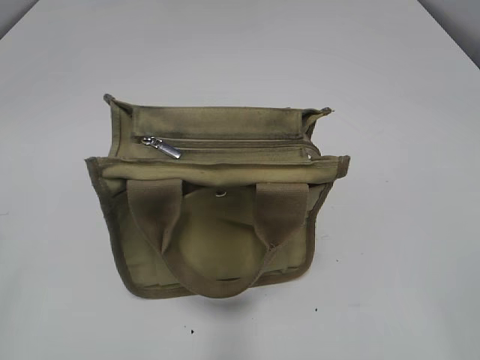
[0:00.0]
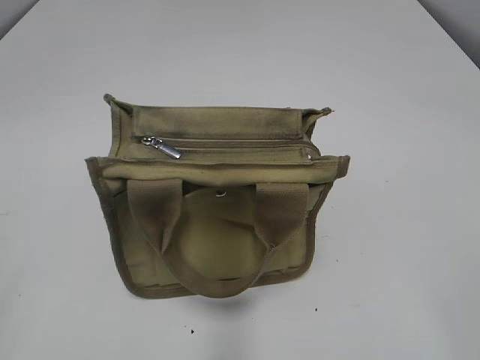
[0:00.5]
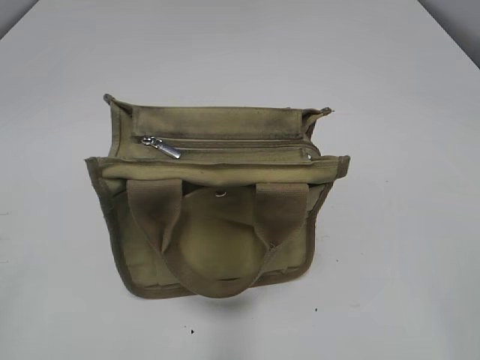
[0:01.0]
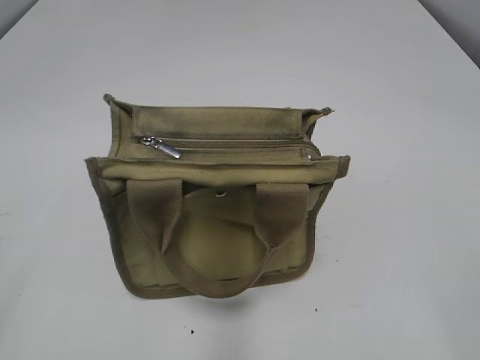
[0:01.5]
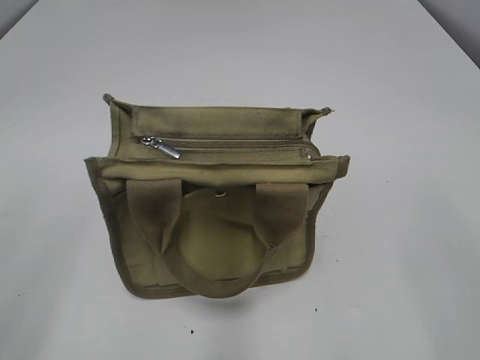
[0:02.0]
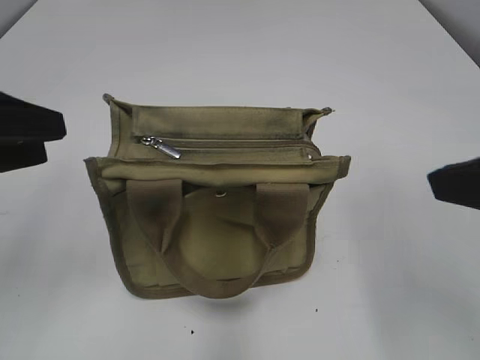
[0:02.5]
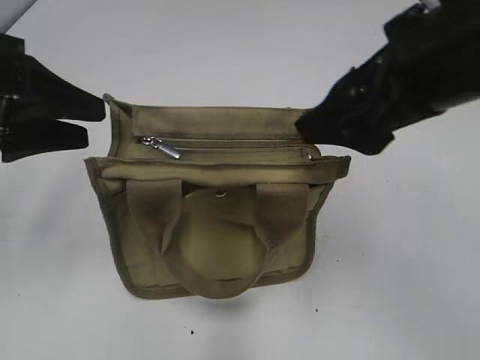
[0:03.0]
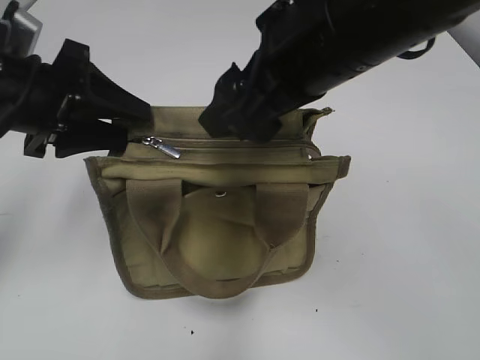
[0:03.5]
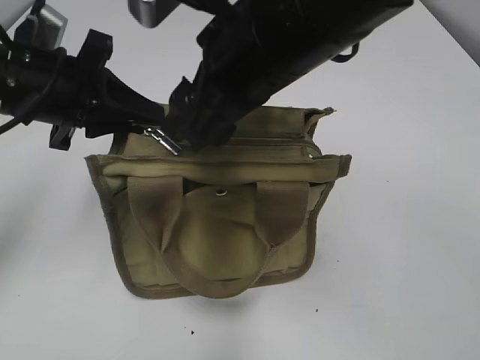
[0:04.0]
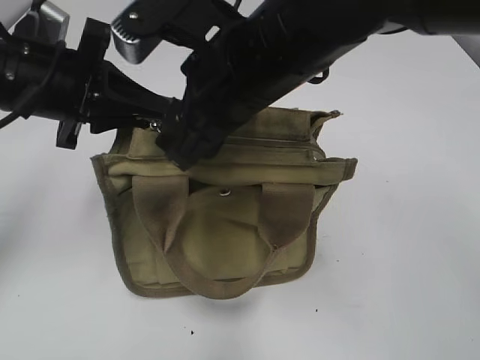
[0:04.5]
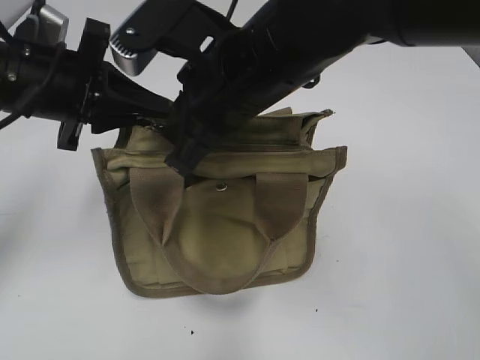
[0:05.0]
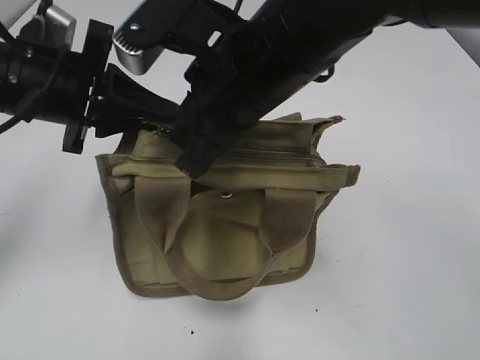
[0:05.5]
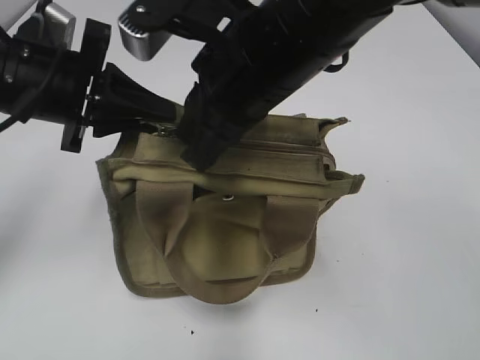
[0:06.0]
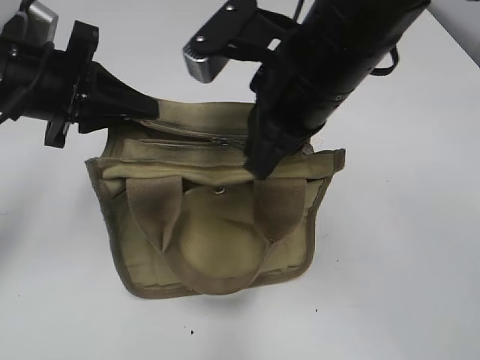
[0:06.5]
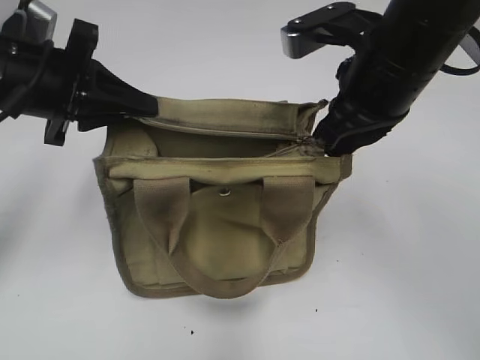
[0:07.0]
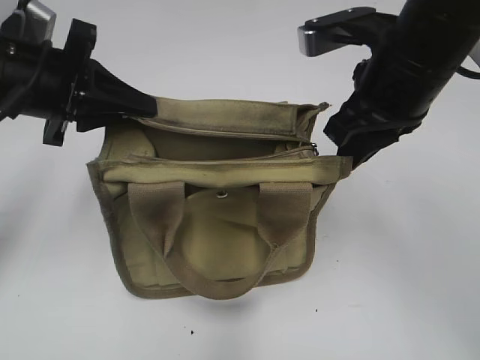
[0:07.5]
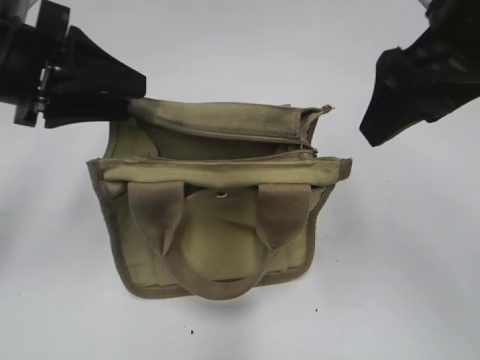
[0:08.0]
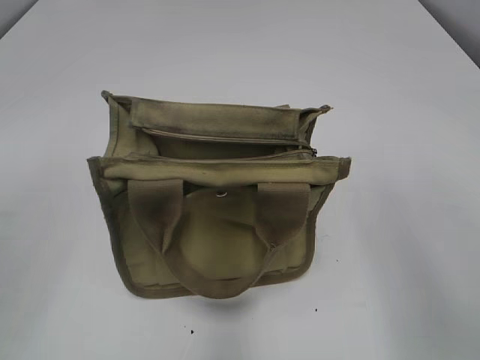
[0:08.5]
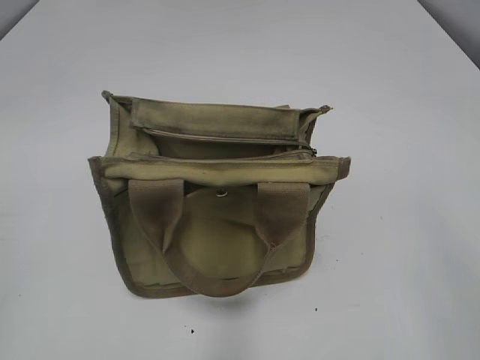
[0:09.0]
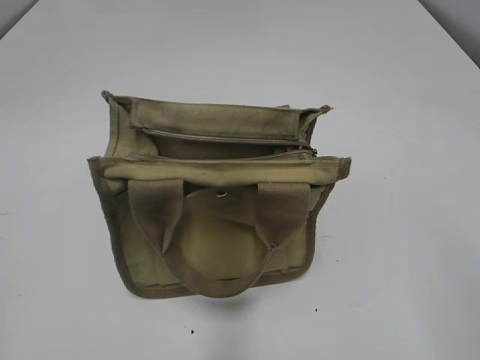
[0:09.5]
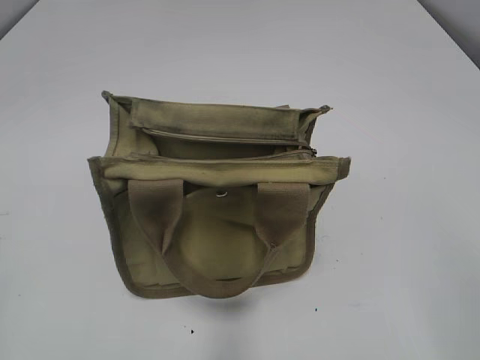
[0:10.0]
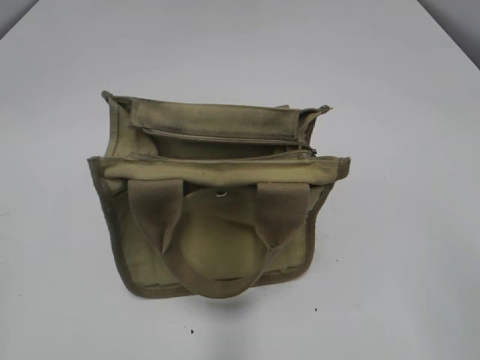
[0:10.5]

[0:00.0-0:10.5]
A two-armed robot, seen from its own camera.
Step, 0.0 to 7.0 s: Pull open the zipper with your right hand.
Step, 7.5 to 8.0 s: Hold the bag with your left hand.
2.0 to 4.0 s: The left gripper travels forward and to the right by approximately 25 cm, and closes up. Meanwhile the right gripper heads to the left and forward, covering about 35 cm.
4.0 to 6.5 s: The right gripper closes.
6.5 to 8.5 s: The right gripper moves to the right and backward, roughly 20 cm, and opens its fingers; the left gripper goes approximately 20 cm backward, upward and to the left, and opens up.
8.5 to 10.5 s: The right gripper heads backward, downward and to the right, covering some 15 cm.

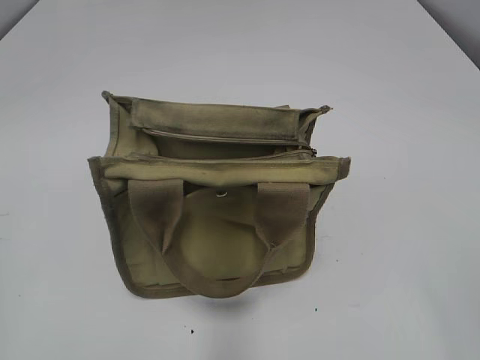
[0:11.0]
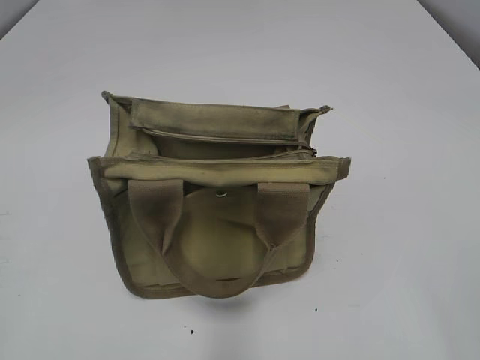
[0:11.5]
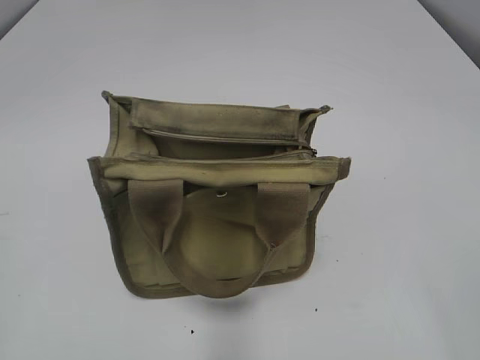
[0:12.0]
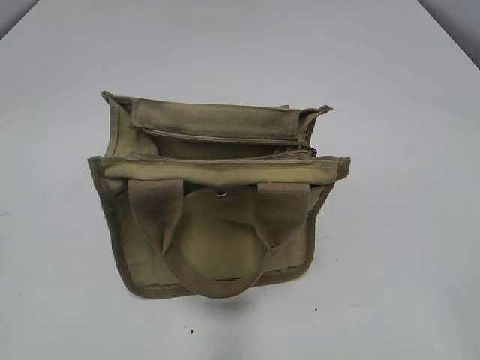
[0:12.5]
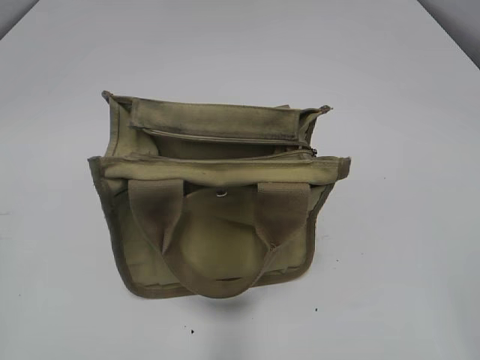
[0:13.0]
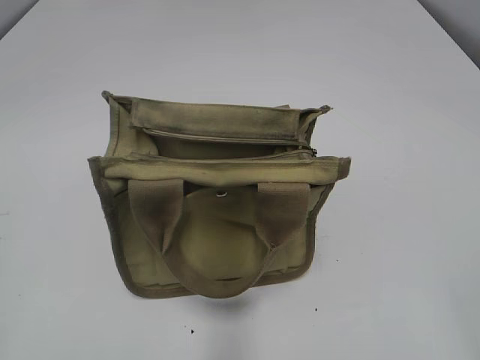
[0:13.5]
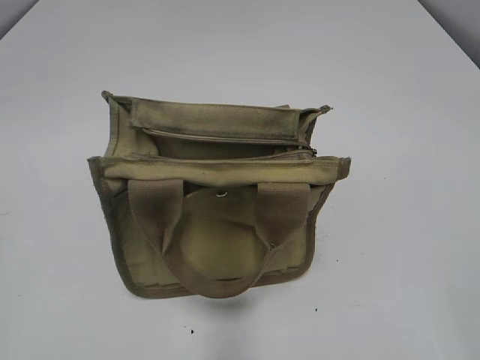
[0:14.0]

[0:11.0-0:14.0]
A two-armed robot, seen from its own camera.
12.5 to 14.0 s: Both grippers stay put.

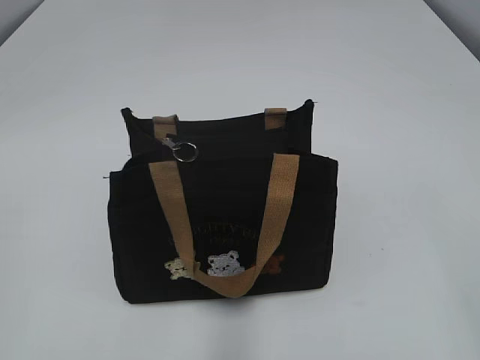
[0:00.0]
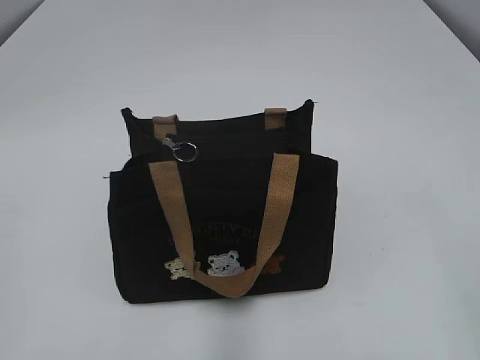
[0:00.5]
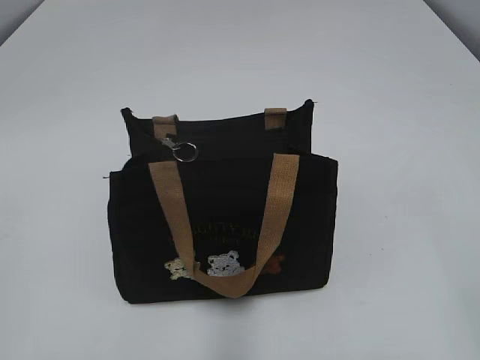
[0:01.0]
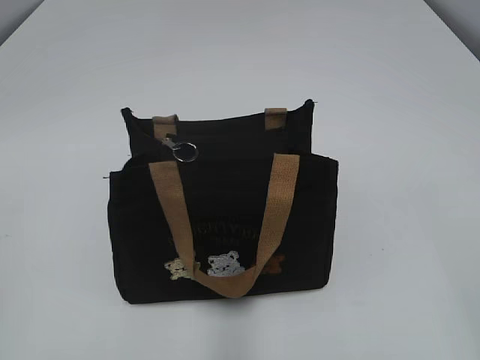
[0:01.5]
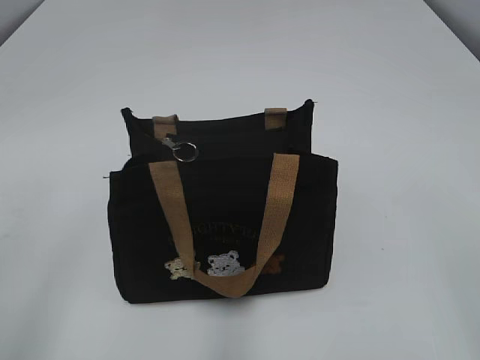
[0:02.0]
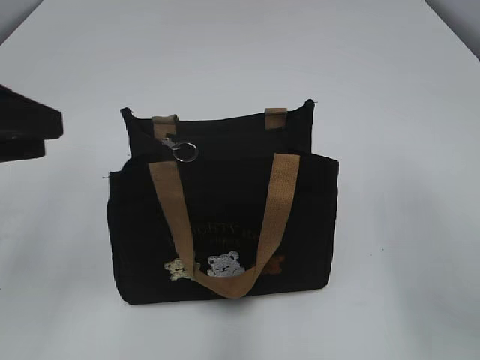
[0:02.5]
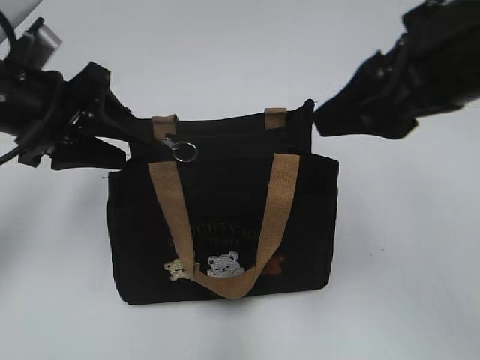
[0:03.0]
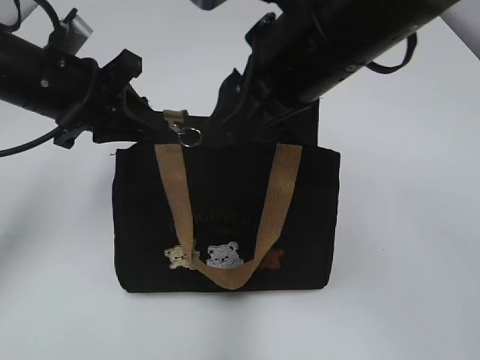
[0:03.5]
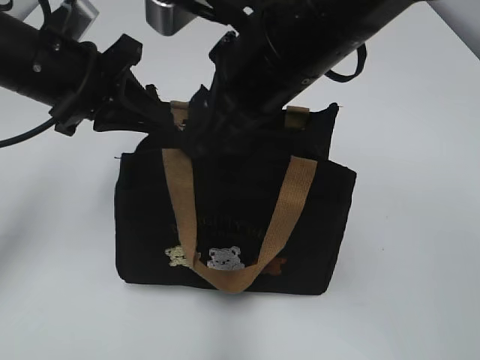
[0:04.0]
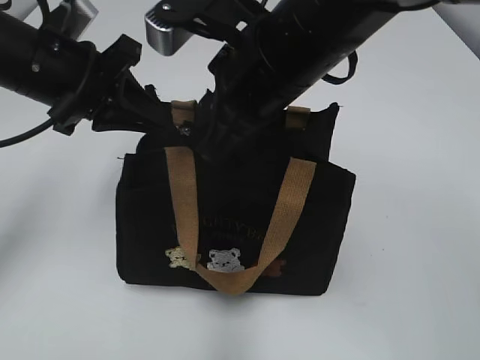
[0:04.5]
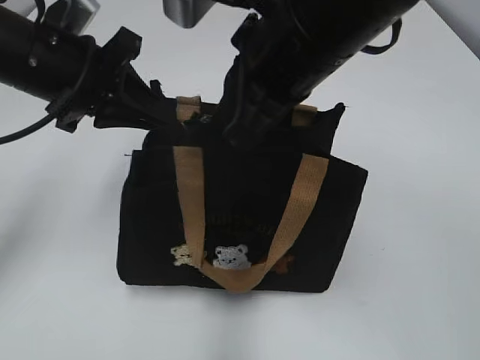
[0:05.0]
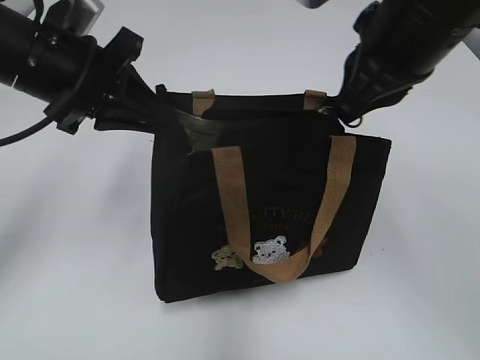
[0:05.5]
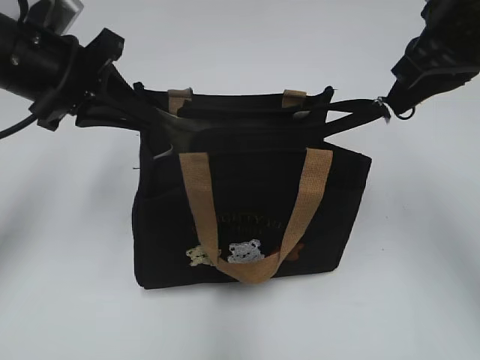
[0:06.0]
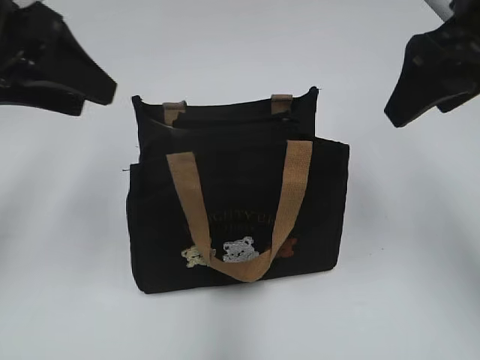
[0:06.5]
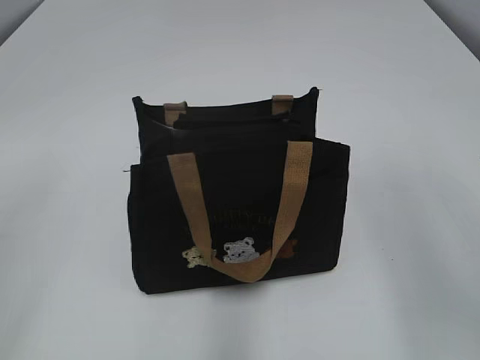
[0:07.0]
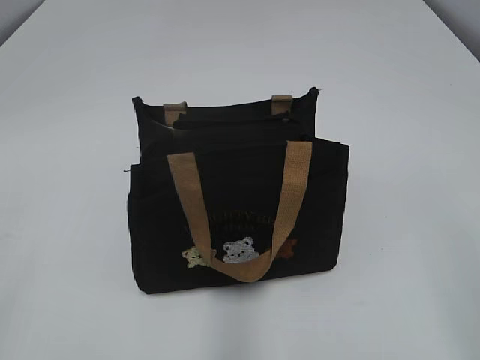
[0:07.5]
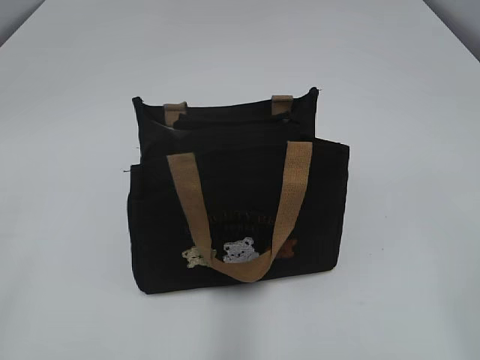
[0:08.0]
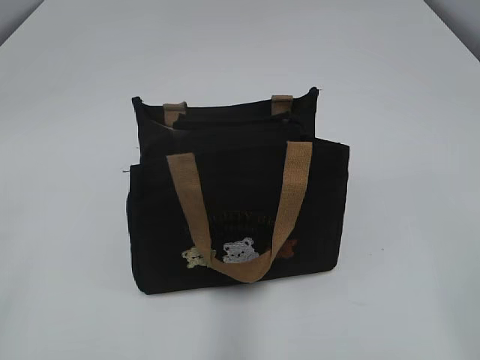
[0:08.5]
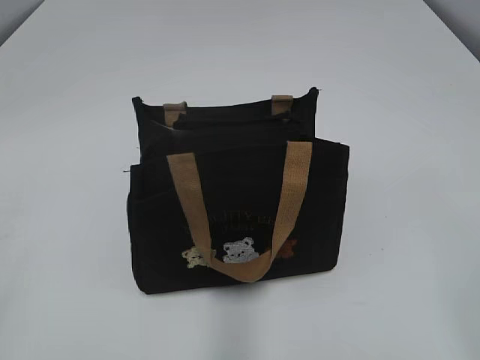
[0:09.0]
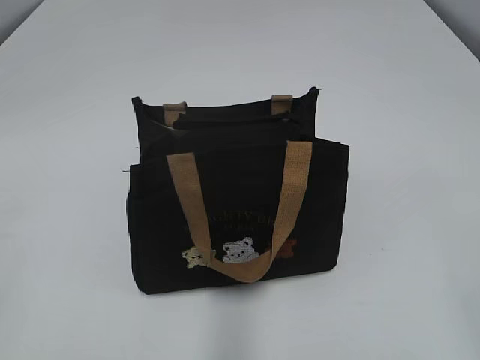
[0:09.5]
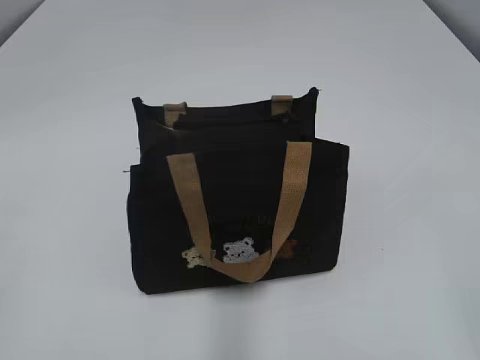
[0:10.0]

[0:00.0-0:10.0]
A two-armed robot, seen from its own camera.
Step, 0.0 to 6.0 s: Pull open the zipper with your right hand.
2.0 to 4.0 s: The left gripper is displaced forward by about 25 cm, and closes up, while the right gripper moves forward and to the left, approximately 35 cm.
4.0 to 6.0 s: The right gripper moves to the right, about 15 cm, and closes.
6.0 to 8.0 s: Both grippers move backward, approximately 30 cm. The right gripper opens up. Meanwhile the left gripper opens.

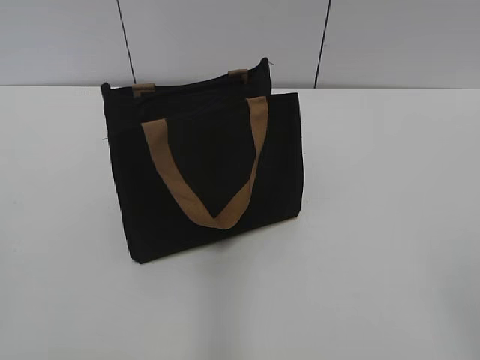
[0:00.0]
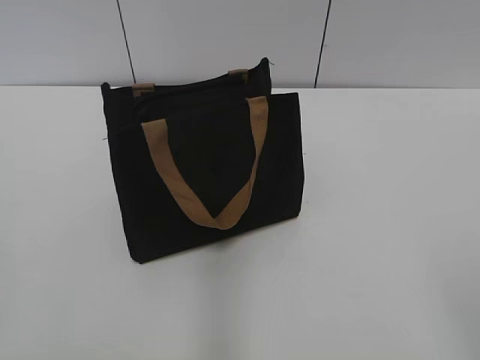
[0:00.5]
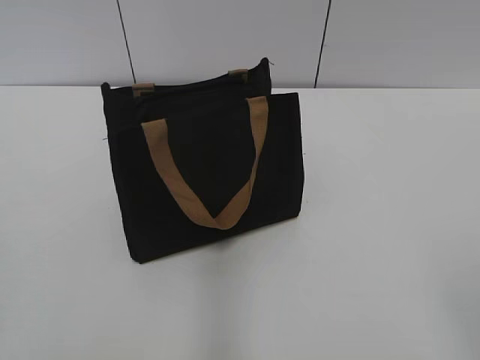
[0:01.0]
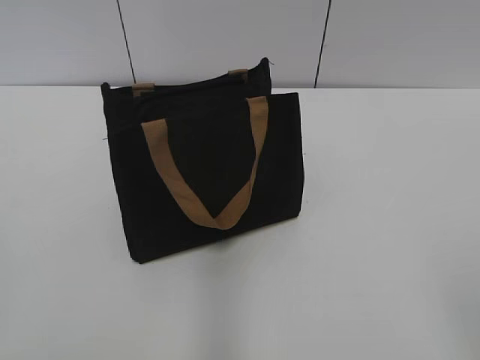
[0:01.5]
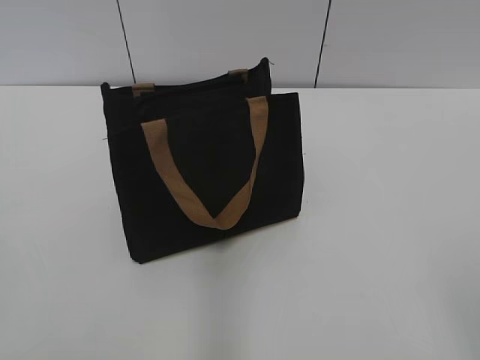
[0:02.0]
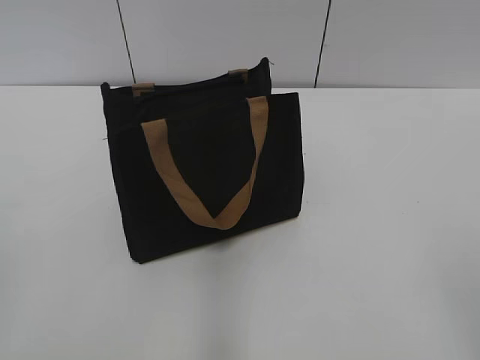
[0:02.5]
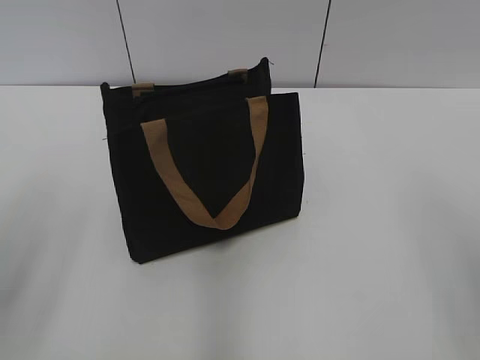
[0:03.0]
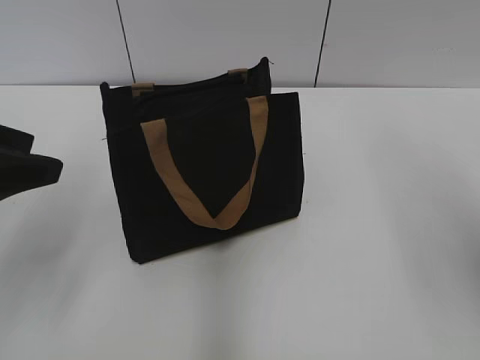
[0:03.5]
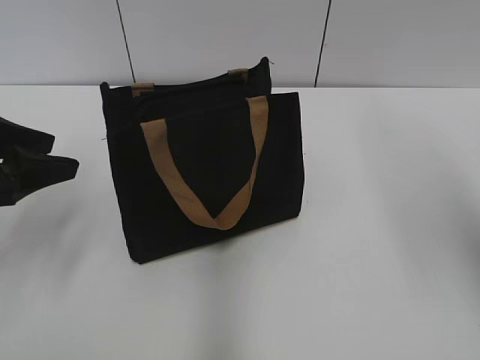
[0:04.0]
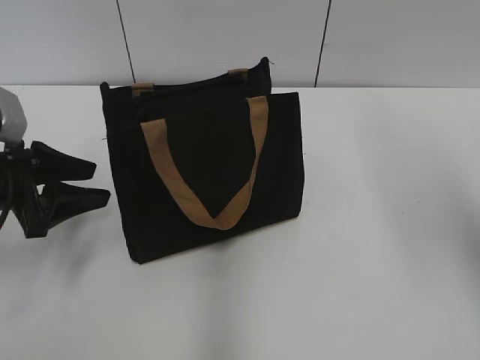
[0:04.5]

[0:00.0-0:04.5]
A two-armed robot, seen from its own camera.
2.0 to 4.5 s: The right gripper goes roughly 25 cm forward and upward, while the left gripper is displaced forward and downward by roughly 30 cm.
